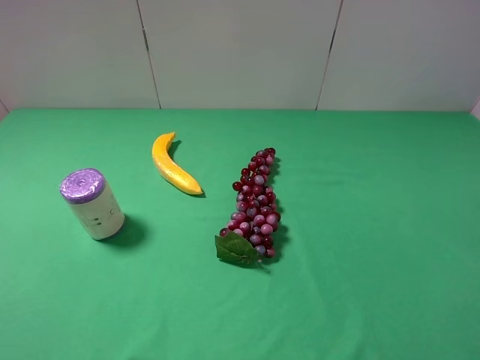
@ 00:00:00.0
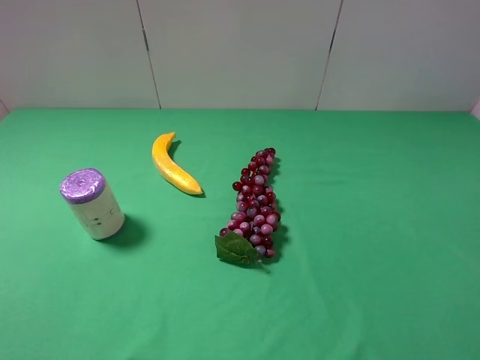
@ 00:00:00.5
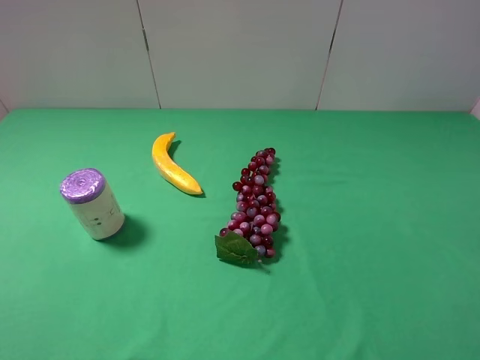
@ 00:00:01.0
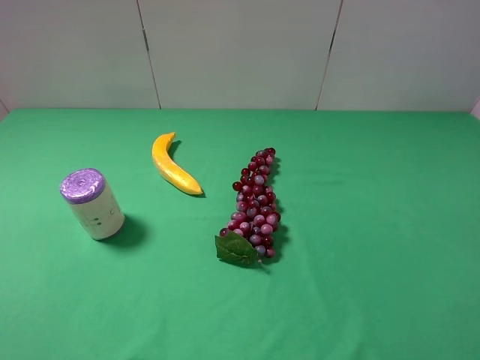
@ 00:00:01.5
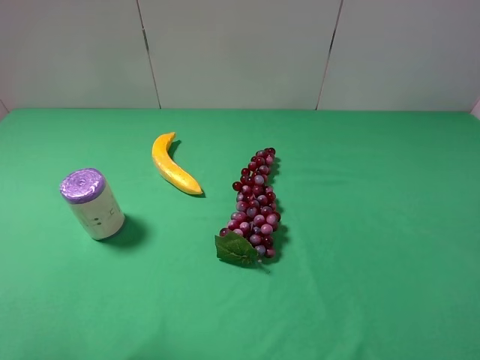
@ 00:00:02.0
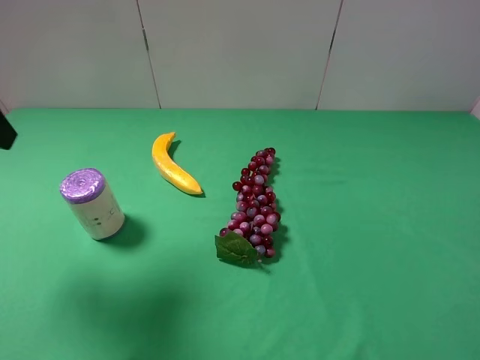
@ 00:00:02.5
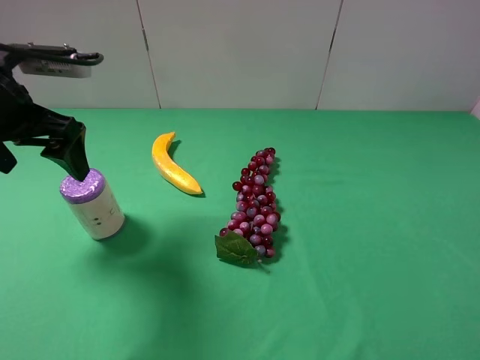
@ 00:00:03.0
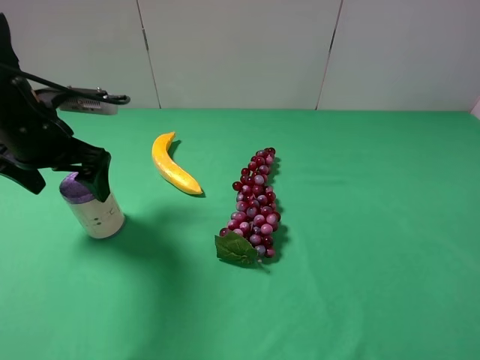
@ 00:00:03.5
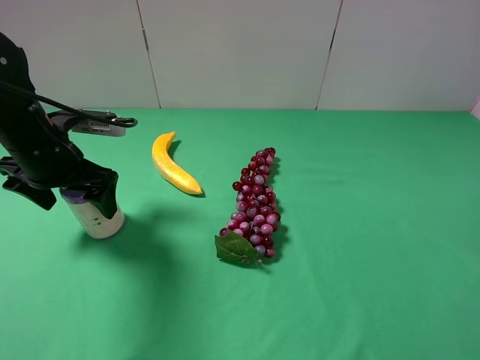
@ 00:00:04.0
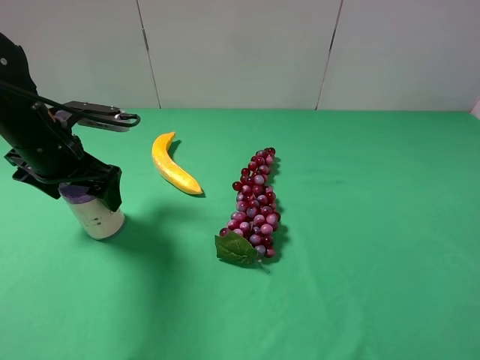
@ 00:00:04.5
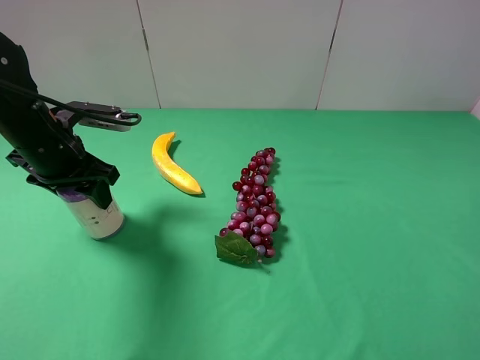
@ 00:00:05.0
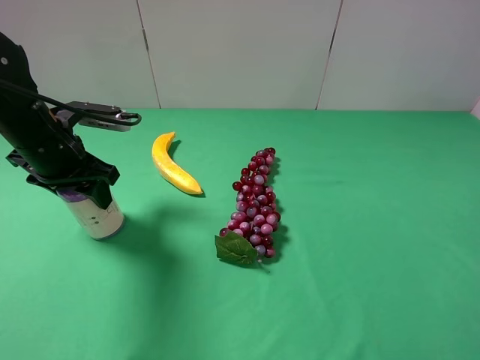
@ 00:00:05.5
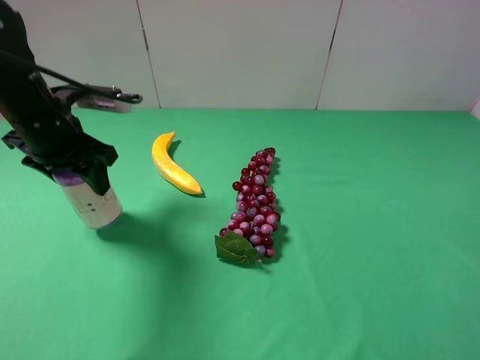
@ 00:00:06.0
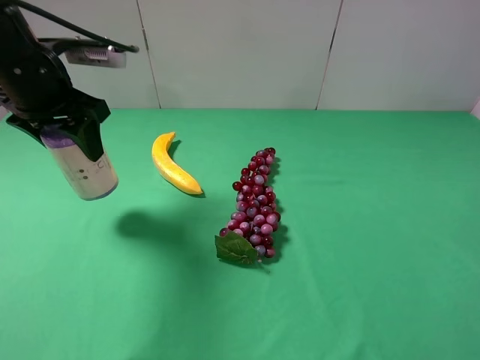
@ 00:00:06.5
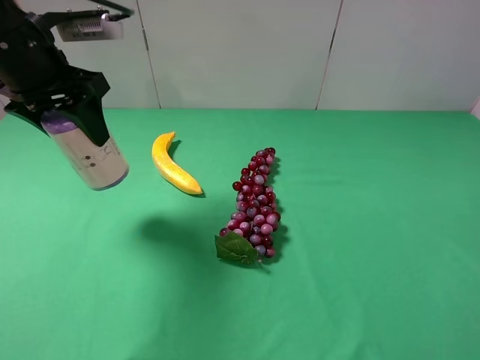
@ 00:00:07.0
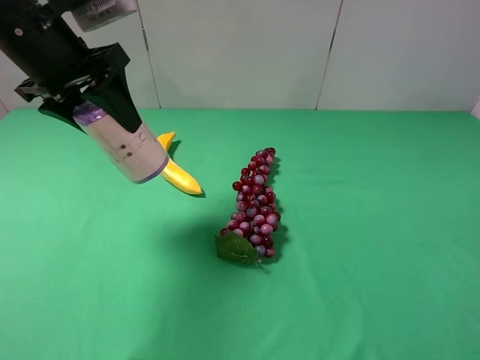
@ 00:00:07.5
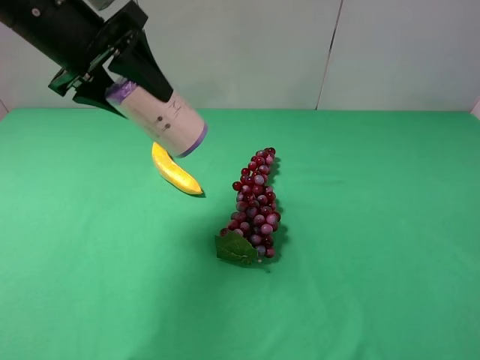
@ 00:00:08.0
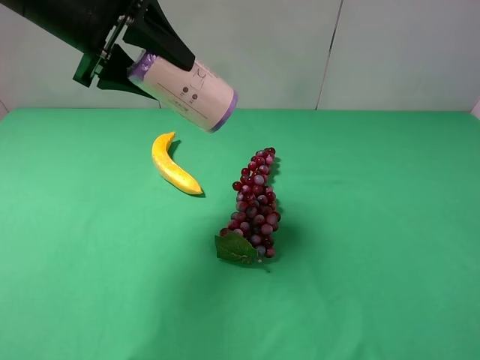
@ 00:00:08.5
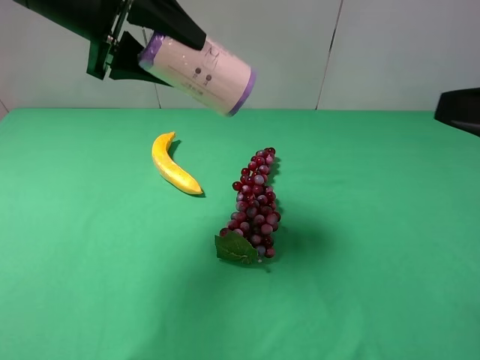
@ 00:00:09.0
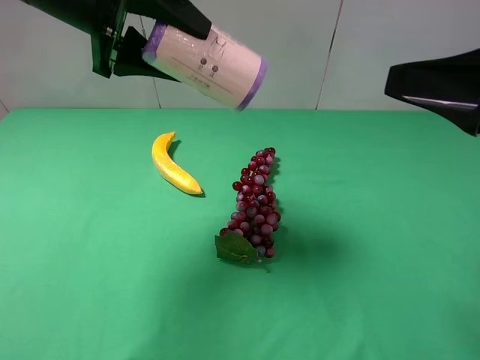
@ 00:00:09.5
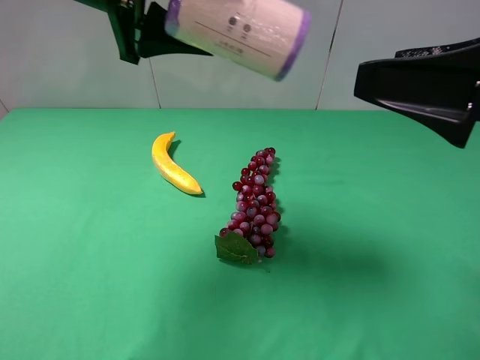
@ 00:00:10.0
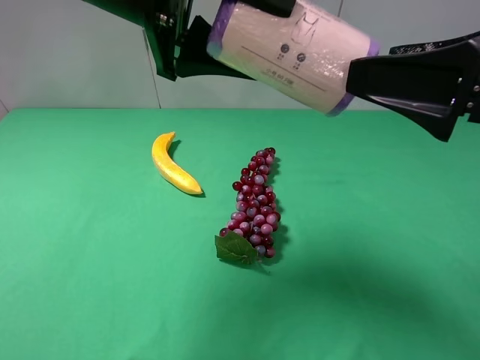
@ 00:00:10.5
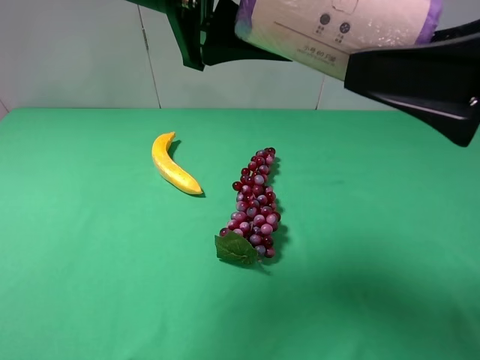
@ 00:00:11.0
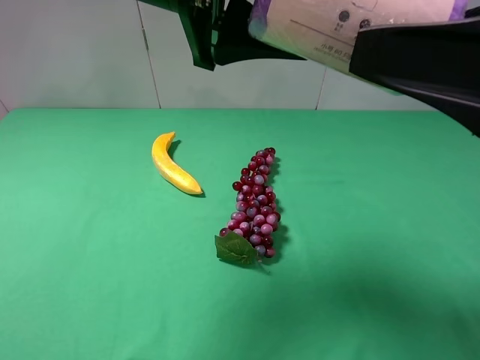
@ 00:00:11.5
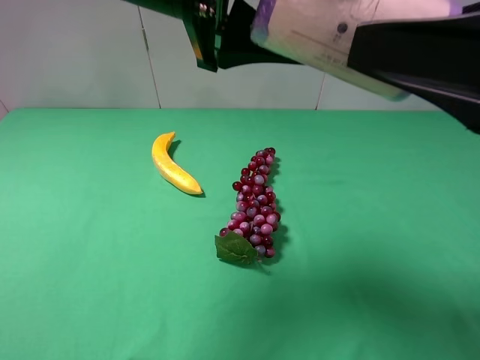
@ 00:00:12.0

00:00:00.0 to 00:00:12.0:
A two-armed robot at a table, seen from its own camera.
Task of the whole recording: use the left gripper to pick up the item and transfer it from the left gripper to the right gripper.
Step, 00:00:00.0 to 00:00:04.5: Use the left gripper to grab the purple garbage bag on the left side of the table.
00:00:02.0 to 00:00:04.0: The left gripper shifts roughly 25 cm forward and downward.
00:00:04.0 to 00:00:06.0: The left gripper closes up.
00:00:06.0 to 00:00:08.0: The left gripper travels upward by some 10 cm.
00:00:08.0 to 00:00:10.0: The left gripper shifts roughly 5 cm to the right. The right gripper goes some 15 cm forward and to the left.
00:00:10.0 to 00:00:12.0: The left gripper shifts about 5 cm to the right.

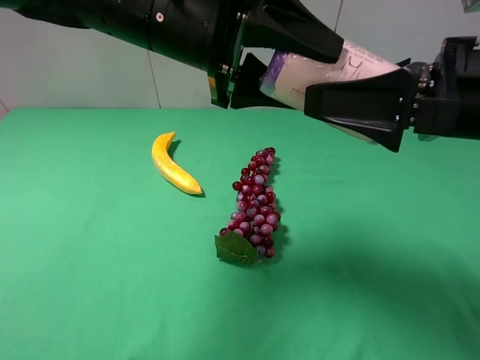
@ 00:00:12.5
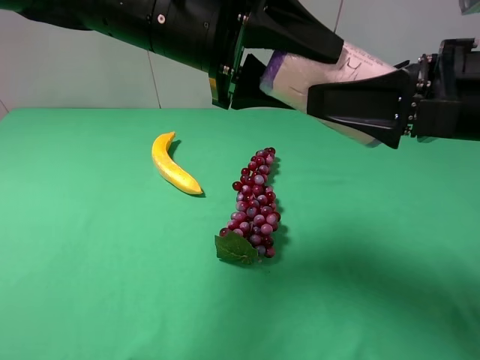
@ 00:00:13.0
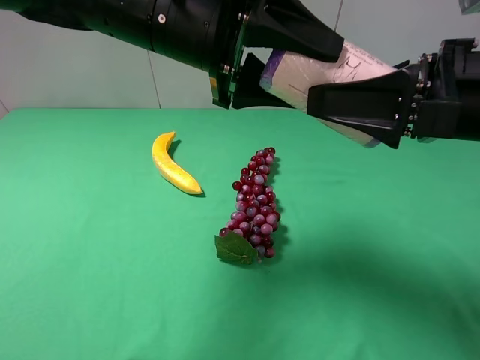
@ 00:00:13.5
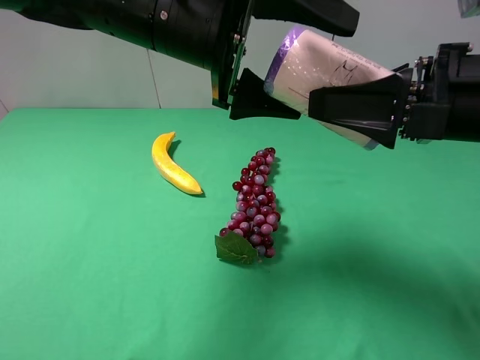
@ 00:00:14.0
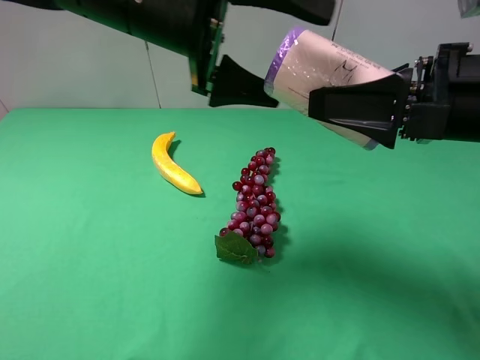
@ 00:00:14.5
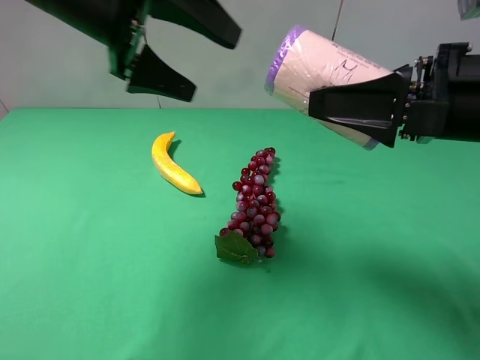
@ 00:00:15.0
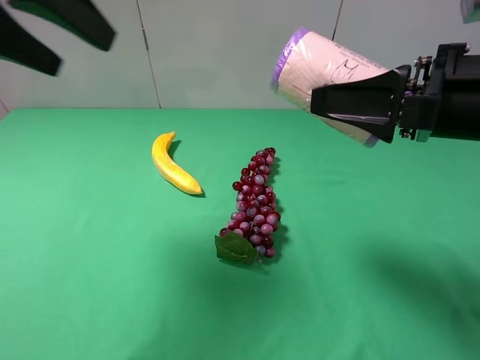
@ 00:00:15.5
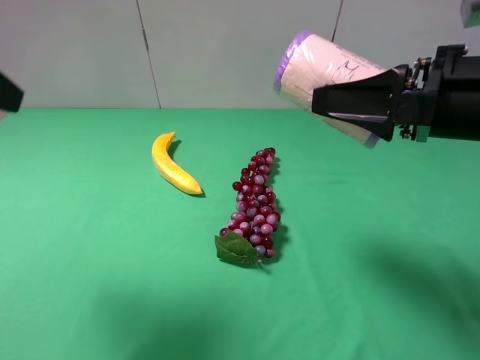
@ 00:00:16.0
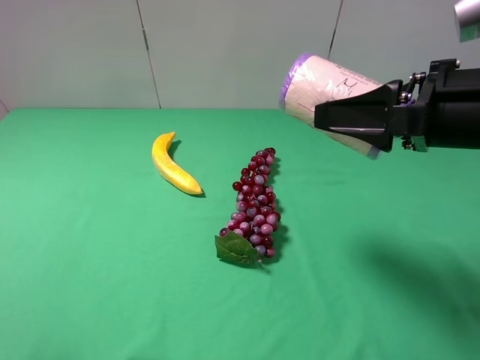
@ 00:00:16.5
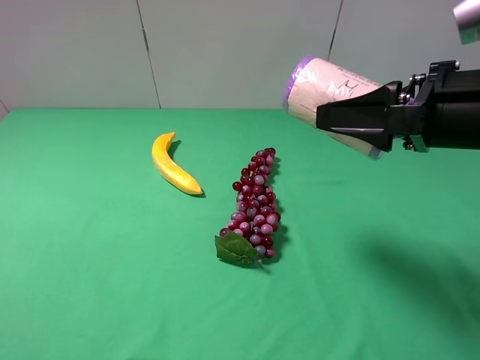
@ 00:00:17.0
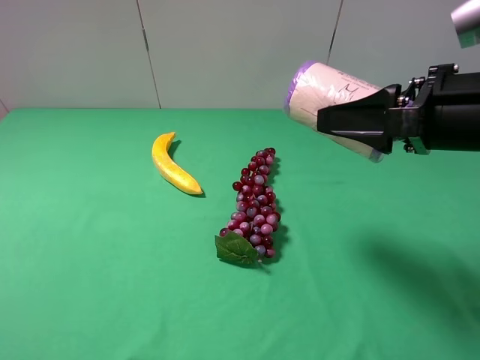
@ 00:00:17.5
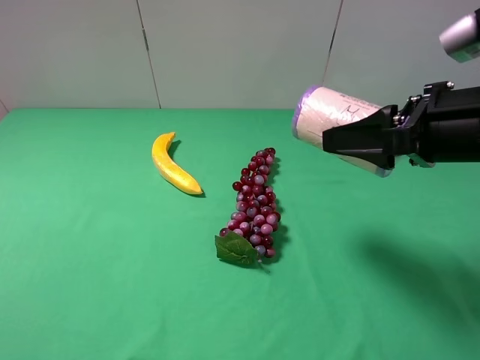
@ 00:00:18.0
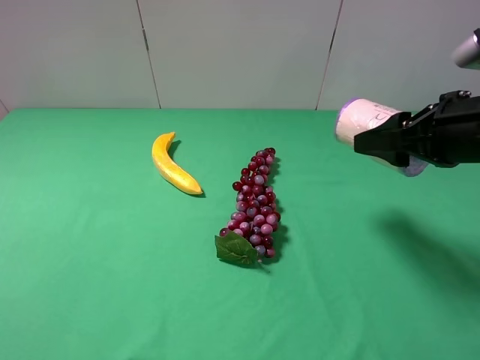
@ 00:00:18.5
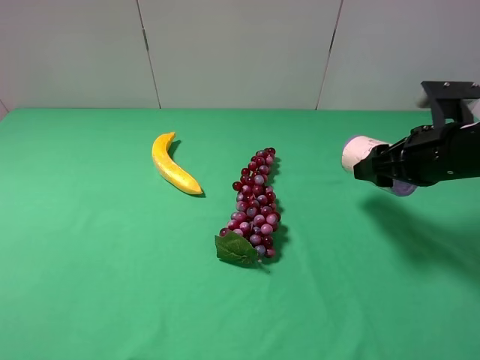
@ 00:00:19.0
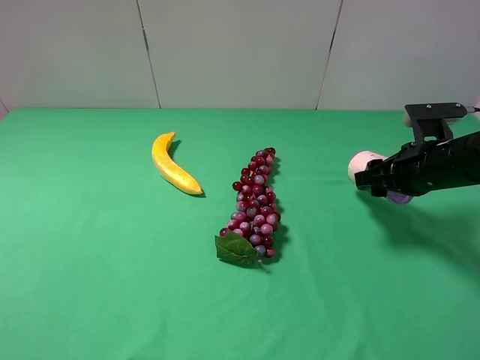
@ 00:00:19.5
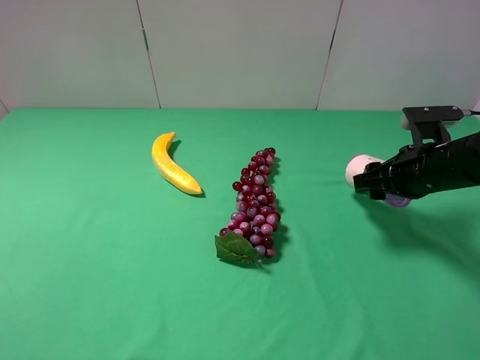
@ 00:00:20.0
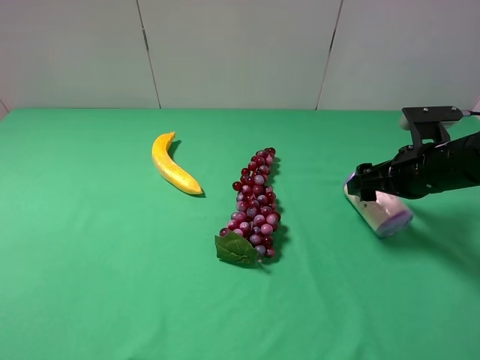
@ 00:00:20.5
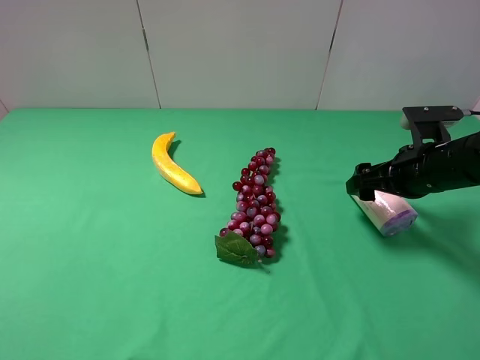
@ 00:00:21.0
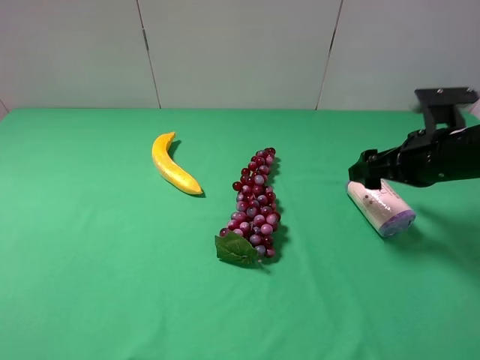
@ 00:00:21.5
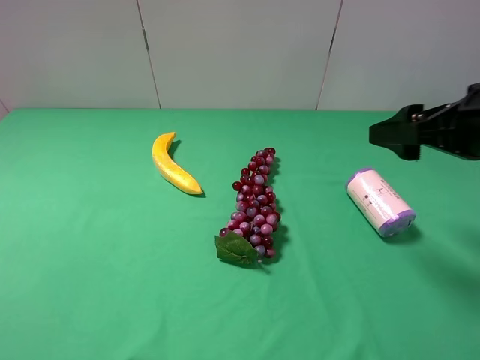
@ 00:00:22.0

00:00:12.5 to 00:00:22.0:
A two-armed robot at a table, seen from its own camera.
Task of the whole recording: use the left gripper to pick up the item and transfer it from the left gripper to the right gripper.
Step, 00:00:14.5 to 00:00:20.5: The right gripper places purple garbage bag on the right side of the table.
00:00:12.5 to 00:00:14.5: The left gripper opens up. The right gripper closes up.
00:00:14.5 to 00:00:16.5: The left gripper shifts approximately 35 cm backward and to the left.
00:00:16.5 to 00:00:18.0: There are only small adjustments of the grippers.
00:00:18.0 to 00:00:20.0: The right gripper travels downward and forward by some 15 cm.
00:00:20.0 to 00:00:22.0: The right gripper travels upward and backward by roughly 15 cm, and opens up.
